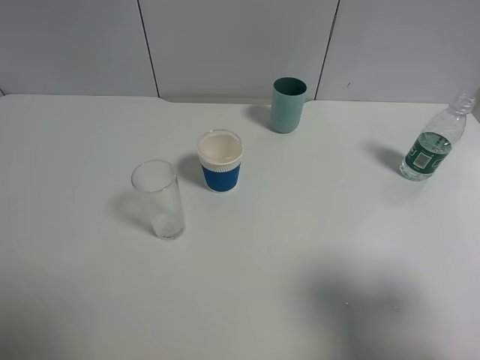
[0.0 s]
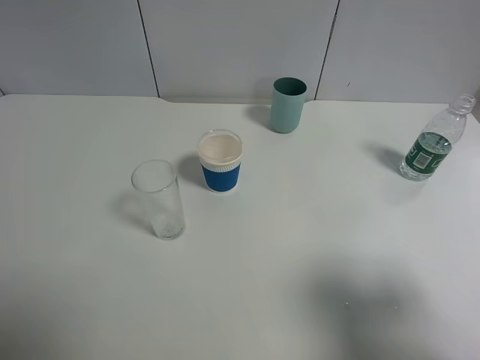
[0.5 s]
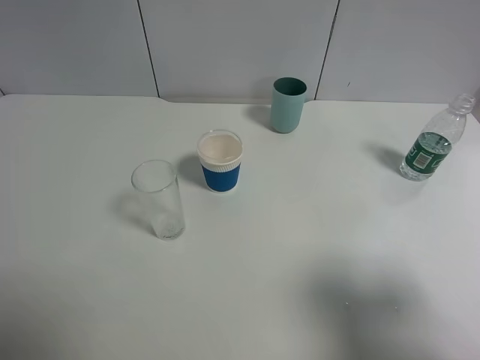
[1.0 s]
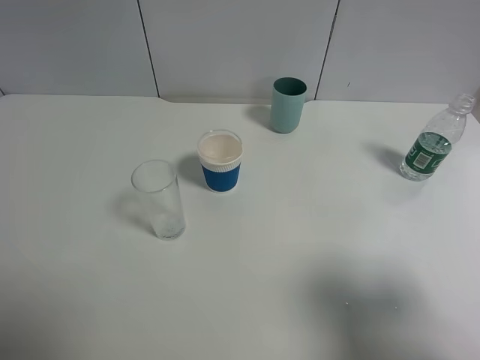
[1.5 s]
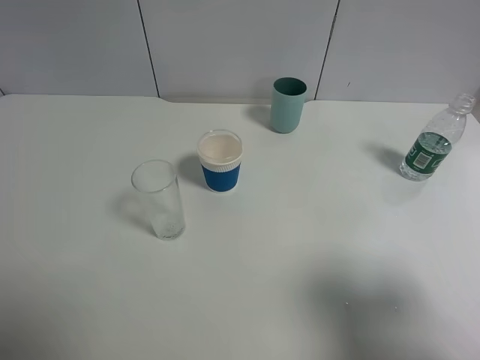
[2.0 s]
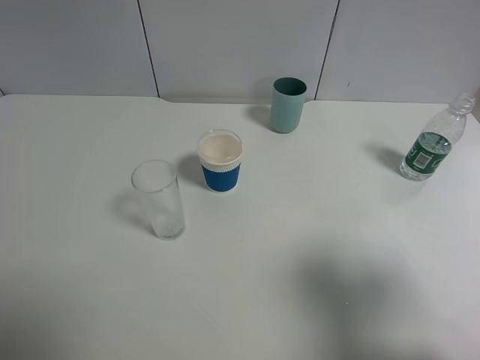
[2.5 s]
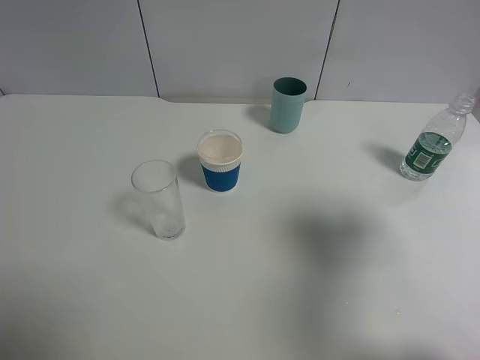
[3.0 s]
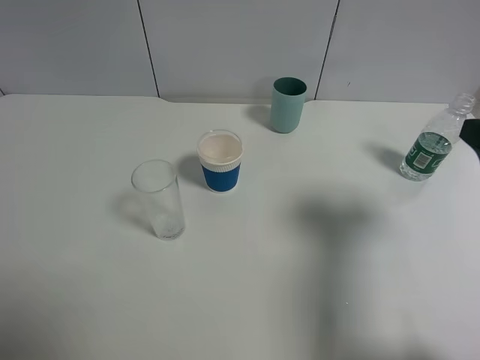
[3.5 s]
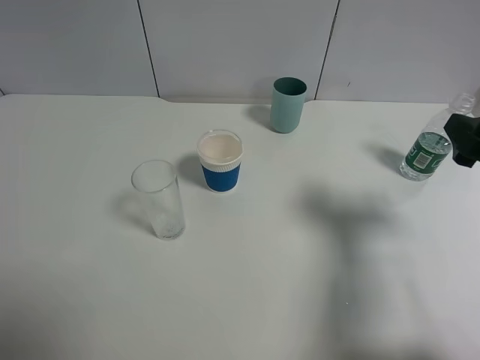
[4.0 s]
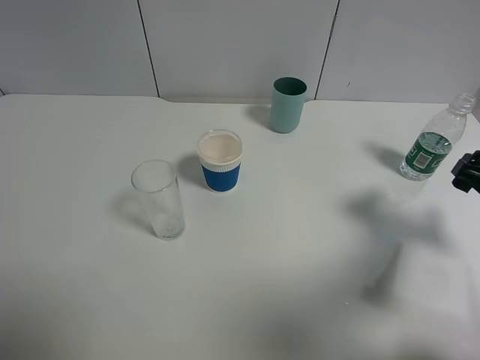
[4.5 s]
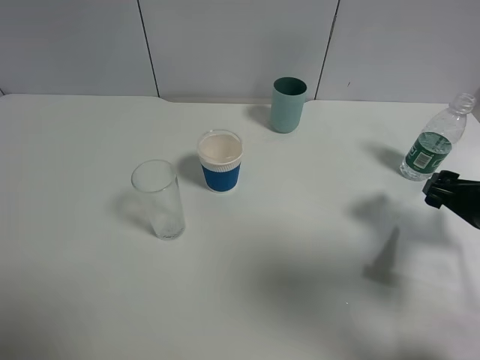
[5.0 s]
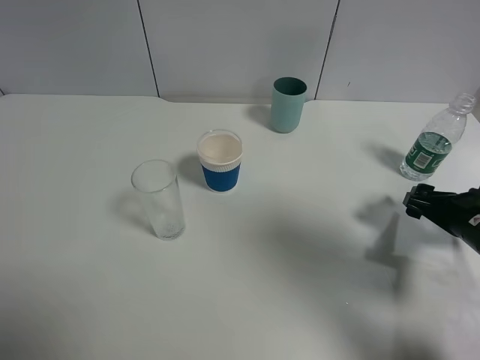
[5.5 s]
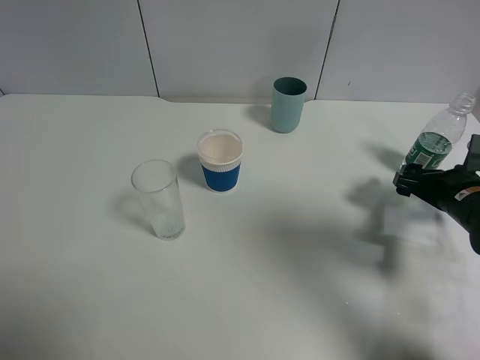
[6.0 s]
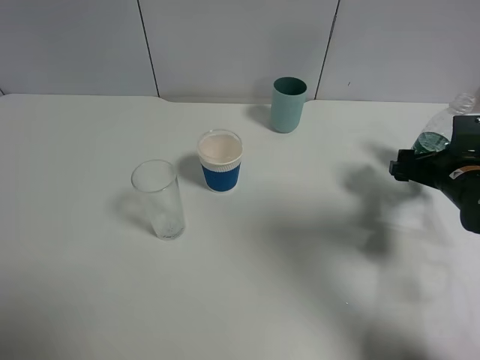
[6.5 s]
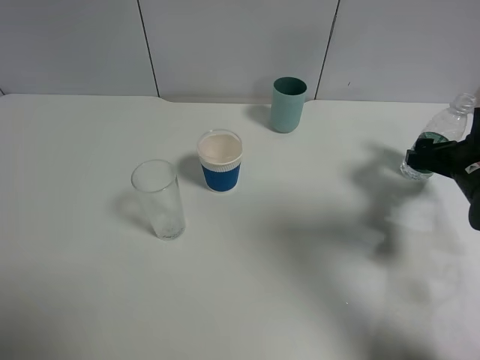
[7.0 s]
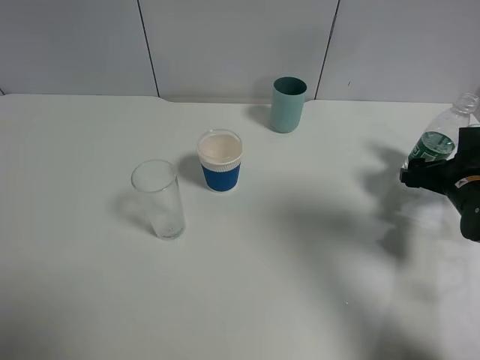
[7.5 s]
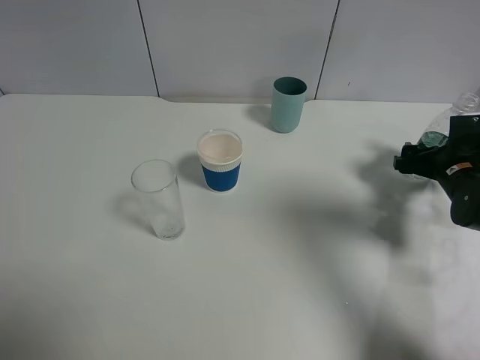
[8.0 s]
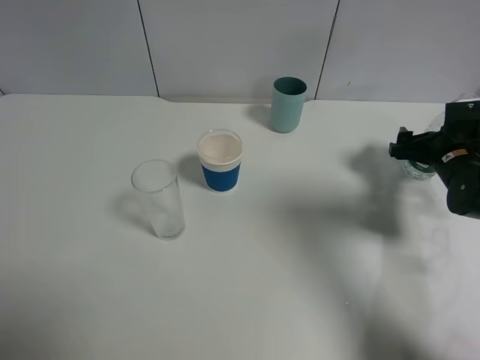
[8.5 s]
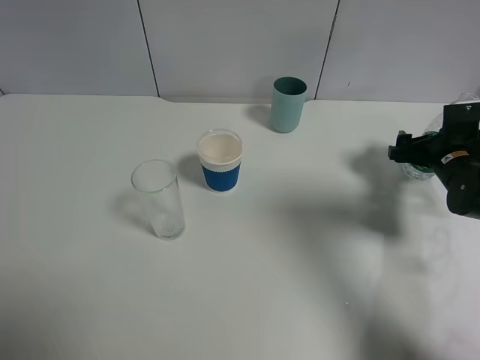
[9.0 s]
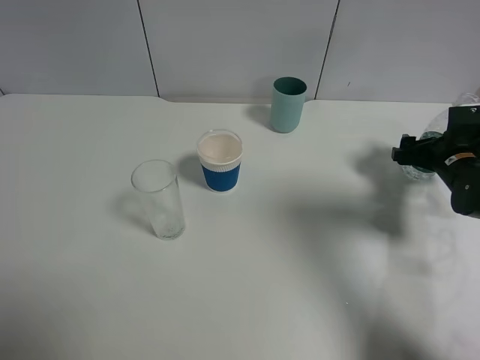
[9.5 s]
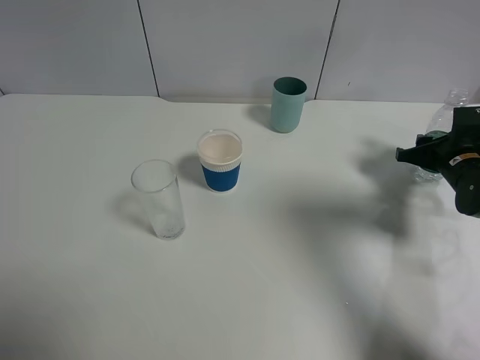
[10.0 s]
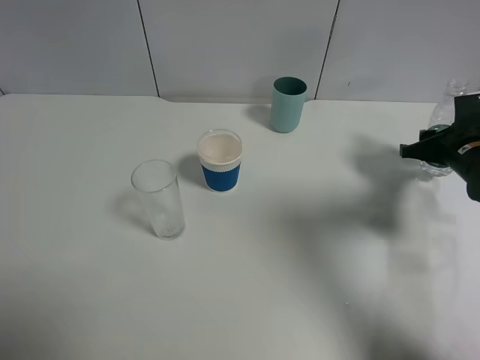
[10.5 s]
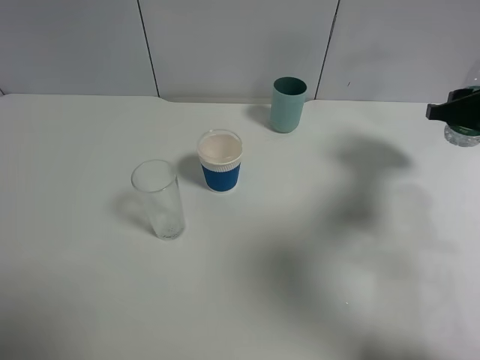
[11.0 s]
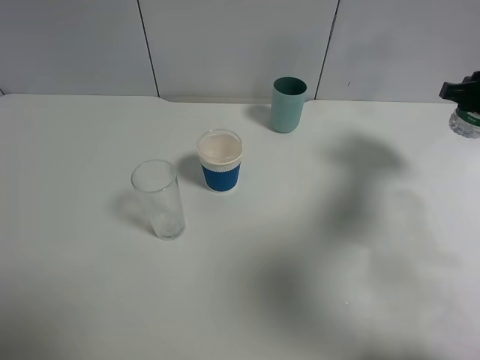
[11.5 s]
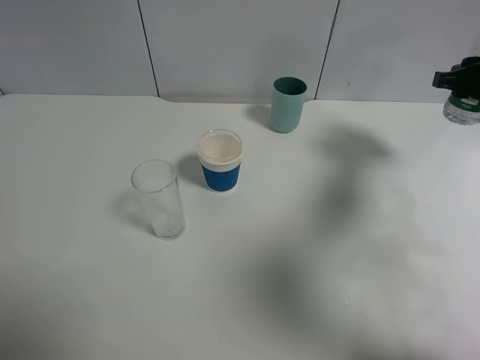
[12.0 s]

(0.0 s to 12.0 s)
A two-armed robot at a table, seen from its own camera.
Task of the whole recording: use a gripper to hold the bottle of the drink and pour it into a random cup.
Step, 0.0 s - 10.0 s: Grasp the mineral water bottle with the right gripper.
0.0 s - 2.0 s: The two grippers keep their place.
2.0 s - 4.0 s: The right gripper travels forward and downward by roughly 15 cm.
4.0 s - 6.0 s: The right gripper goes roughly 15 cm downward and forward.
6.0 s - 8.0 s: The right gripper moves forward, some 5 cm.
8.0 s - 10.0 s: The right gripper closes its fingers.
10.0 s - 12.0 s: The right gripper moves upward, about 15 cm.

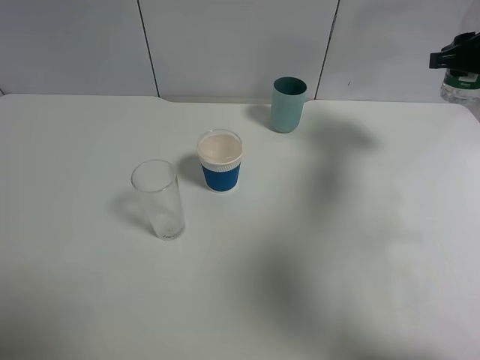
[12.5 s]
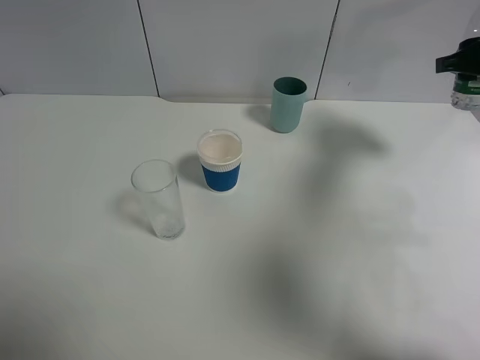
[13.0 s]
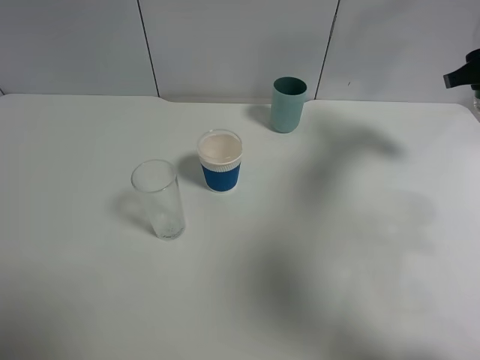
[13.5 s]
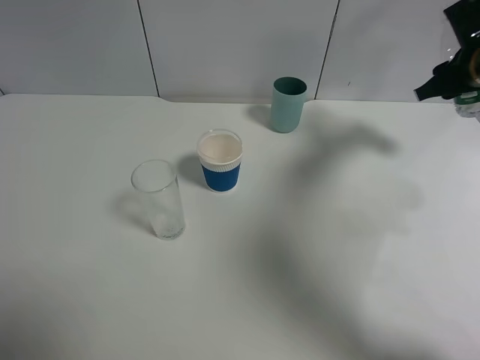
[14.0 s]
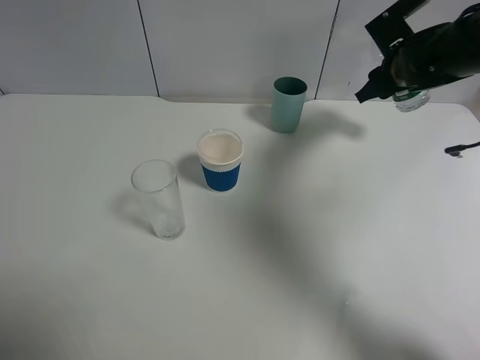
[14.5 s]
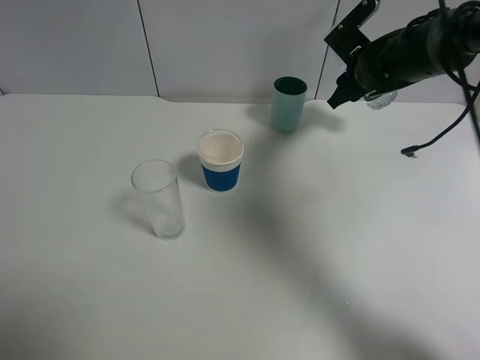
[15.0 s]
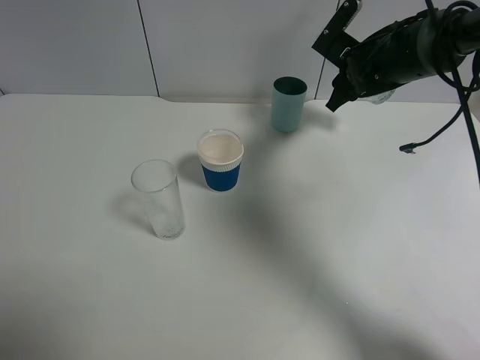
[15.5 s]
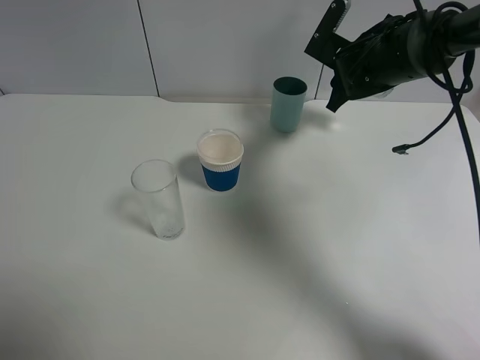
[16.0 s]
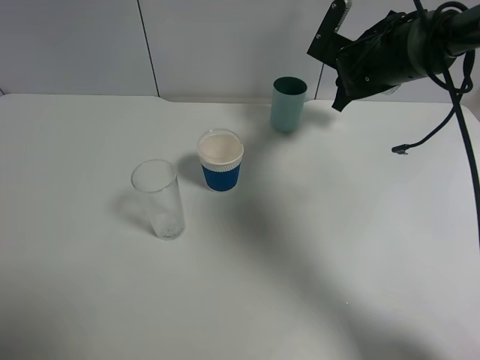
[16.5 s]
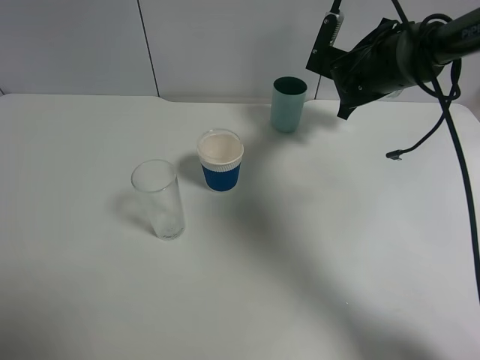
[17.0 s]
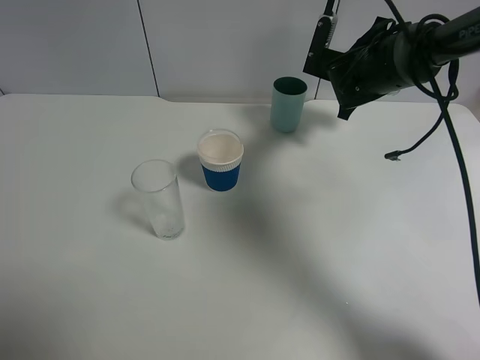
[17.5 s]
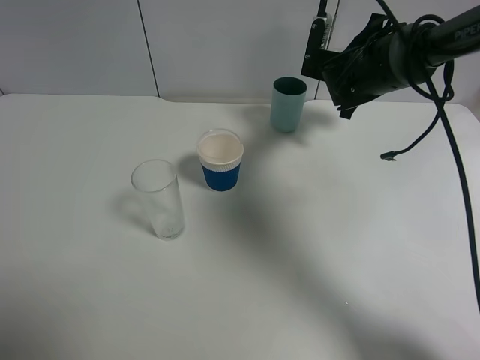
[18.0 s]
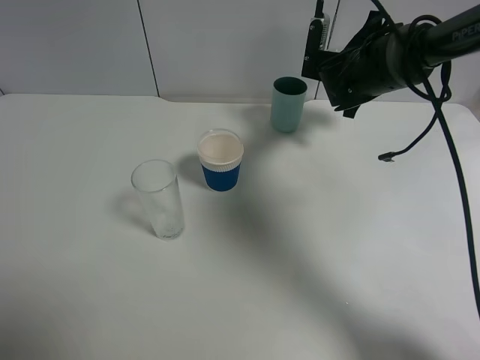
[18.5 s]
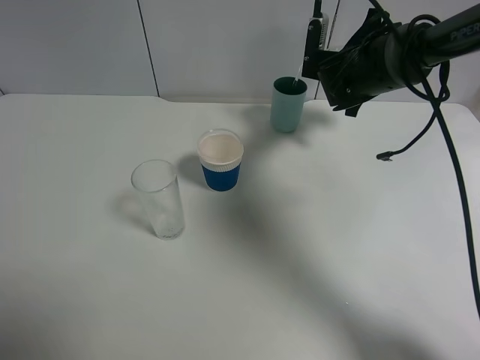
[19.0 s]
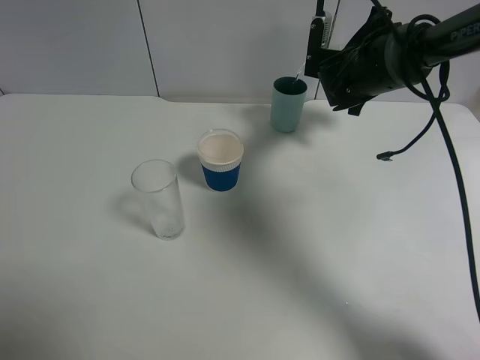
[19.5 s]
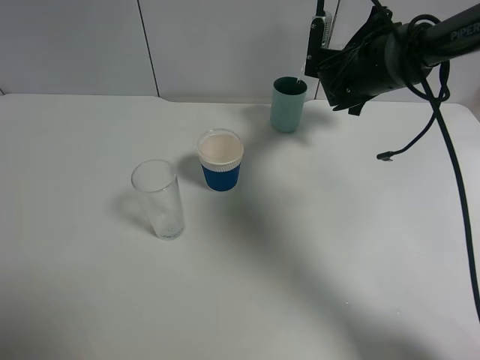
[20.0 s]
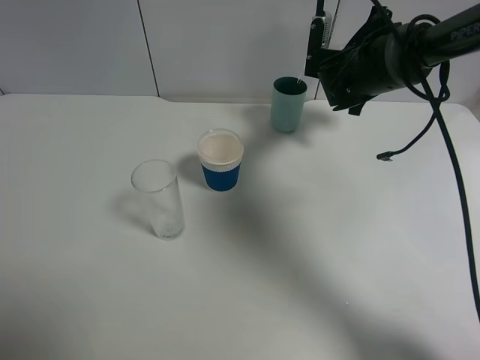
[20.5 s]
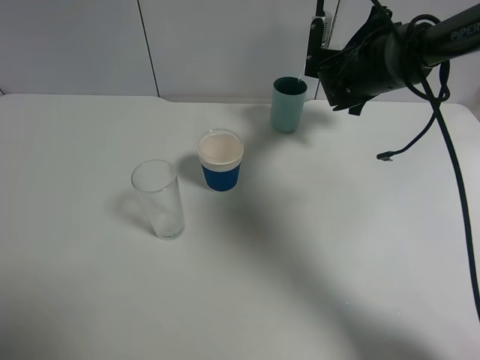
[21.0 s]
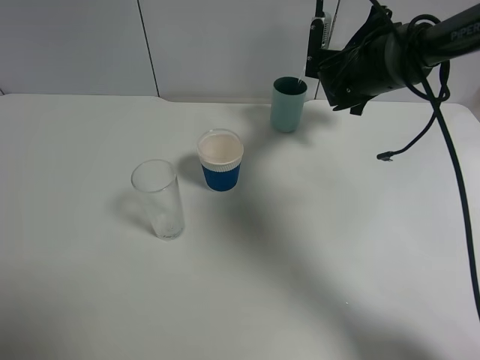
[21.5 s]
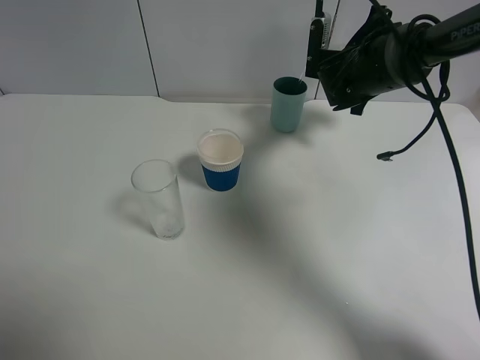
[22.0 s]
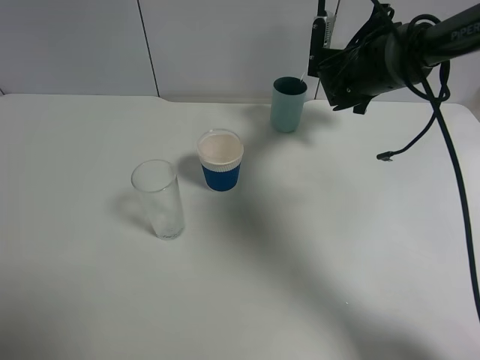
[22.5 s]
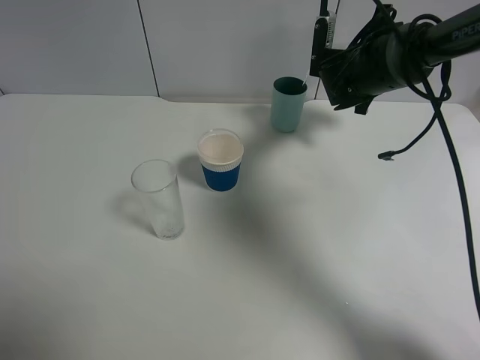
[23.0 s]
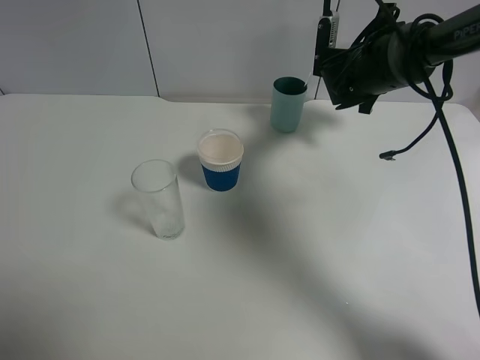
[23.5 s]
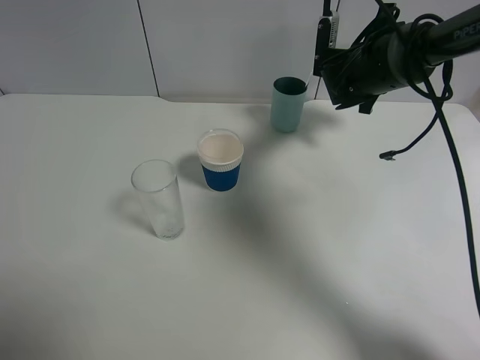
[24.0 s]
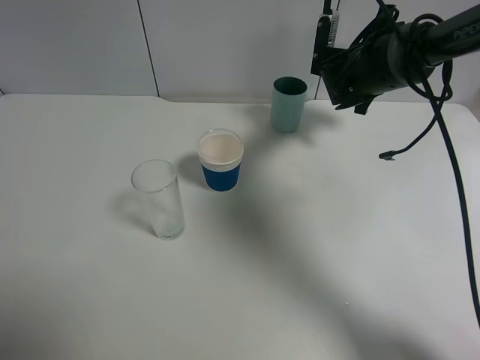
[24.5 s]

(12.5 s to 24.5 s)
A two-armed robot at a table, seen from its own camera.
Task of the whole recording: use a gripper to hold the bottle of the drink and pour it into a random cup.
12.5 s - 14.5 s: The right gripper goes some 15 cm to the left, forward and downward.
14.5 s - 16.5 s: The right gripper goes some 5 cm to the left.
16.5 s - 18.5 s: There are only small adjustments of the grippers.
18.5 s - 20.5 s: Neither gripper changes place.
20.5 s - 24.5 s: The two grippers keep their place.

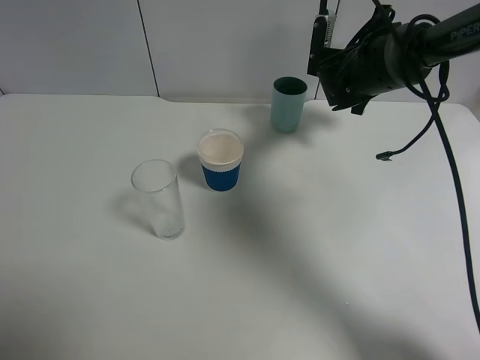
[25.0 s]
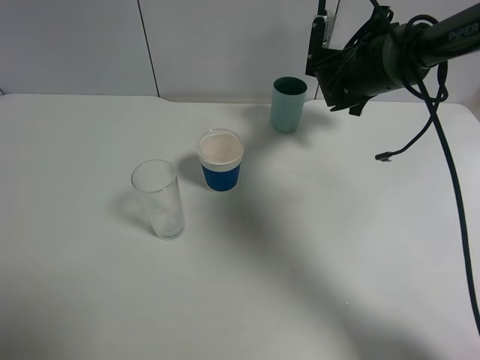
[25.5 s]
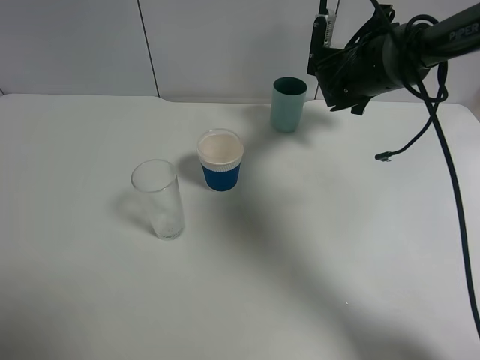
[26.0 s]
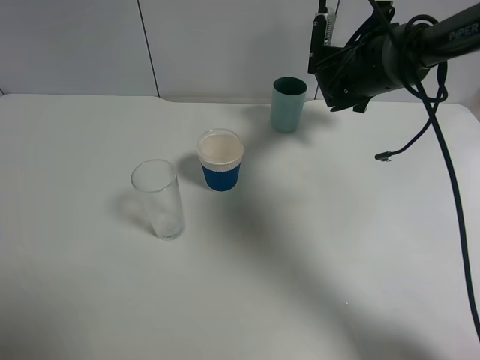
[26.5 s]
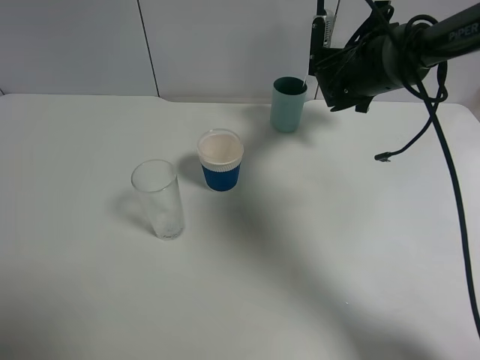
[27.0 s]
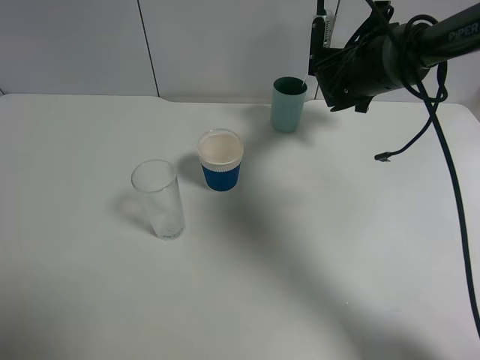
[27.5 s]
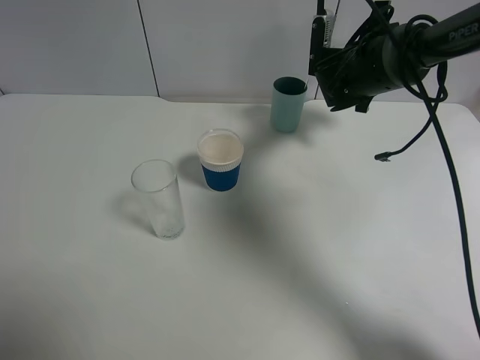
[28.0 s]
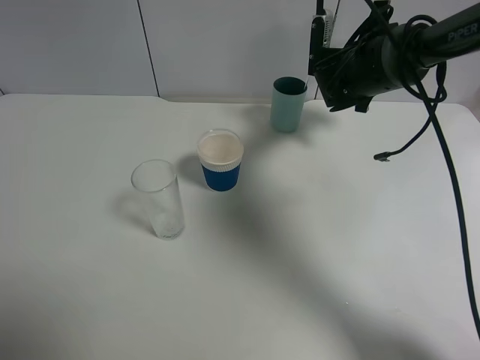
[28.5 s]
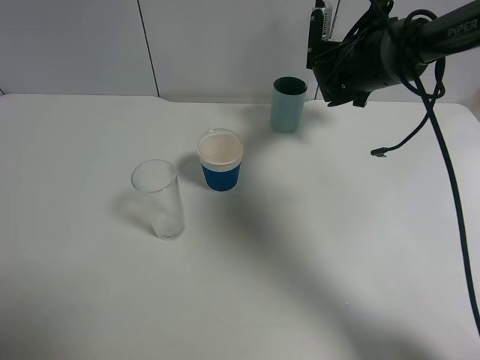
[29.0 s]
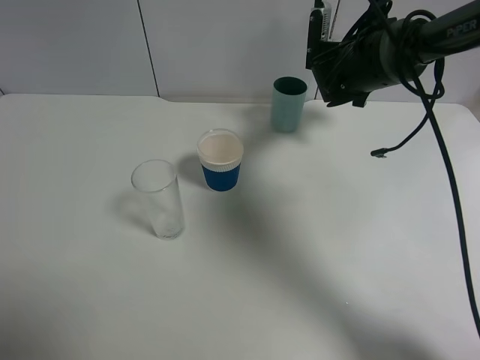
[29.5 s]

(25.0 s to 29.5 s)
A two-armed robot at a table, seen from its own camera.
Task of the whole recording: use a gripper to hold the bottle of the drink and pour it into a random cup.
25.0 s - 29.5 s: Both grippers stay put.
